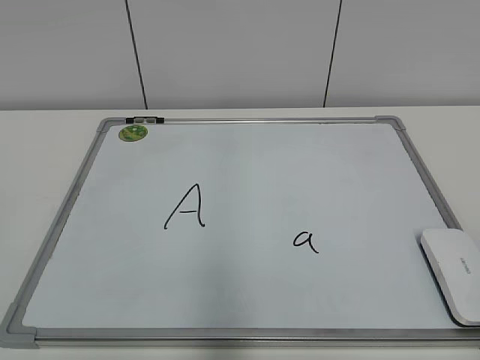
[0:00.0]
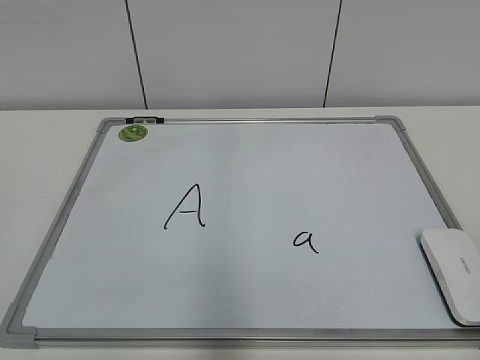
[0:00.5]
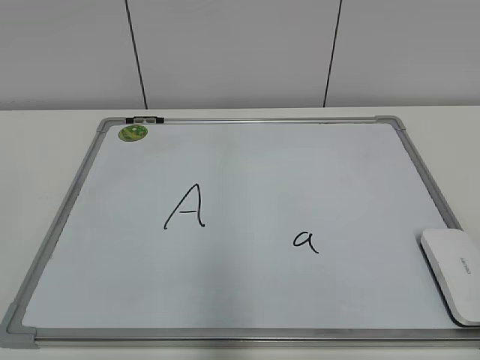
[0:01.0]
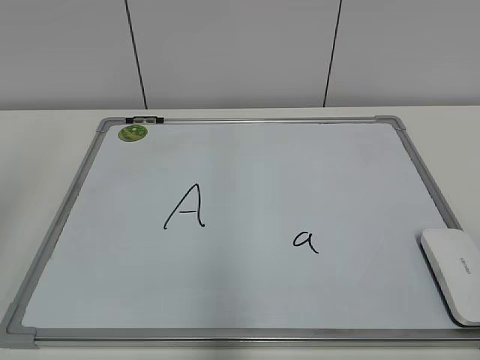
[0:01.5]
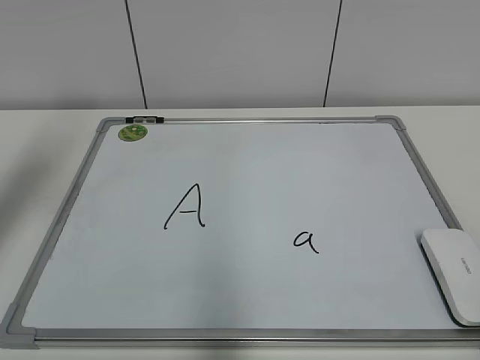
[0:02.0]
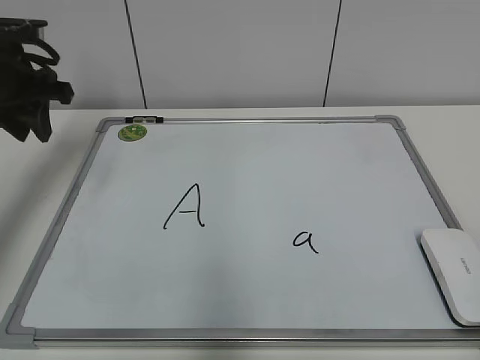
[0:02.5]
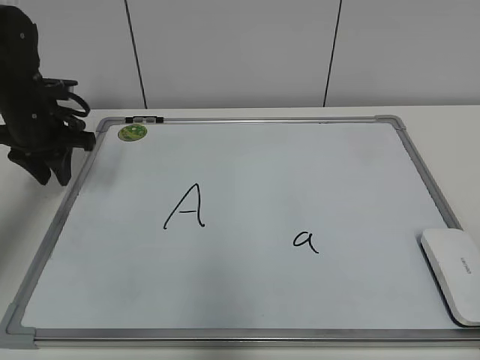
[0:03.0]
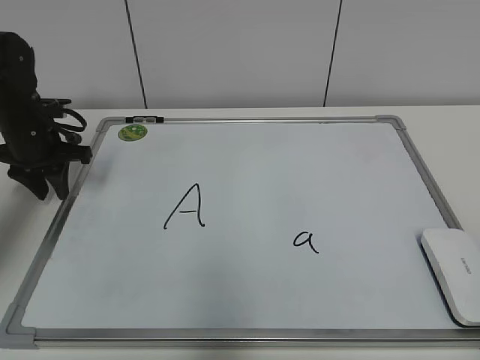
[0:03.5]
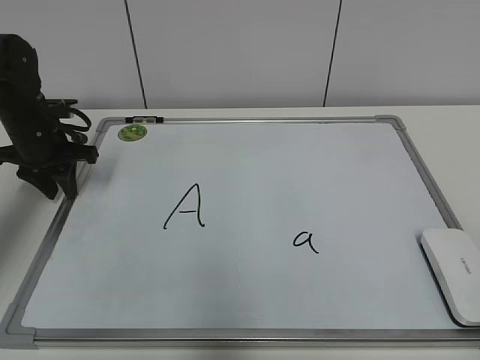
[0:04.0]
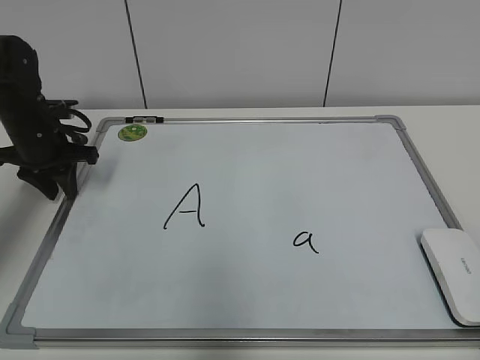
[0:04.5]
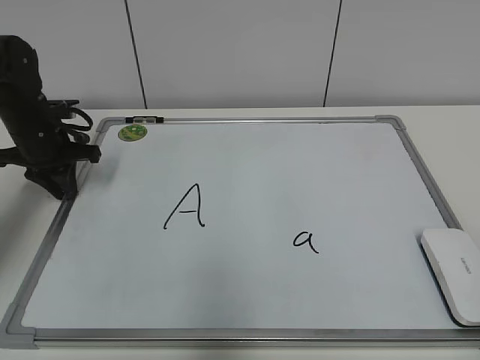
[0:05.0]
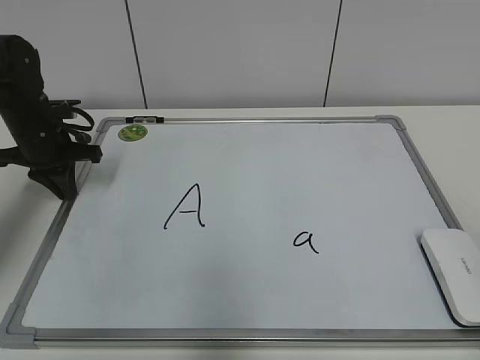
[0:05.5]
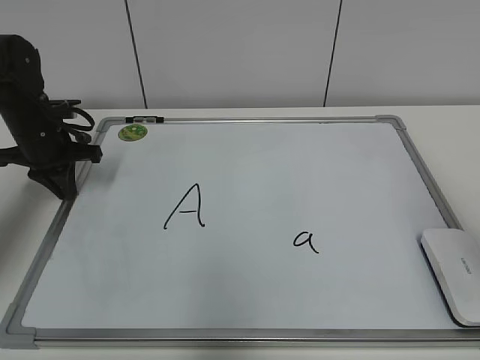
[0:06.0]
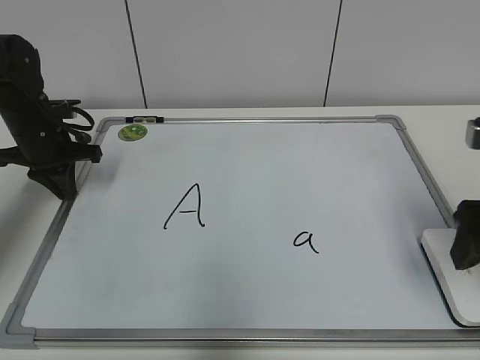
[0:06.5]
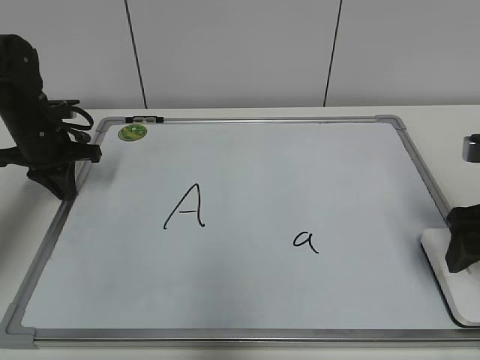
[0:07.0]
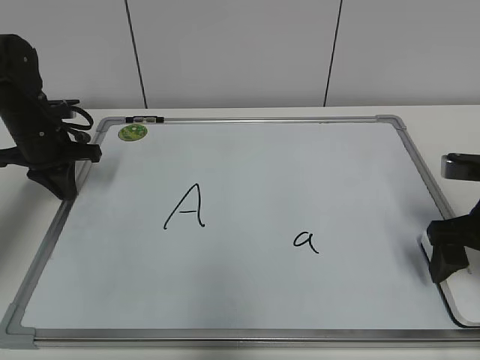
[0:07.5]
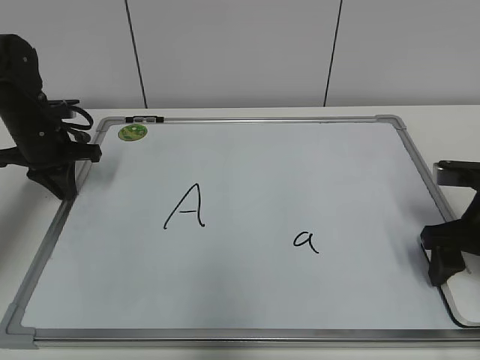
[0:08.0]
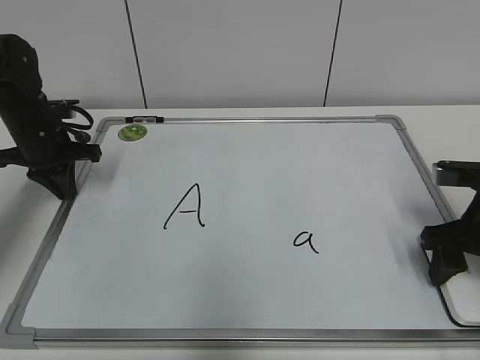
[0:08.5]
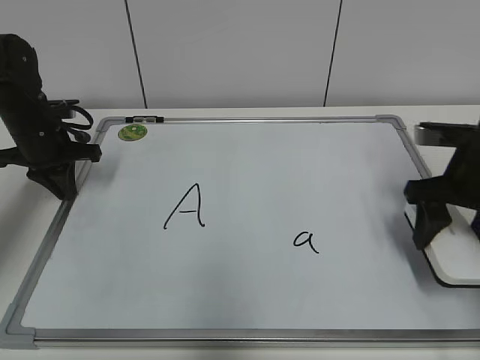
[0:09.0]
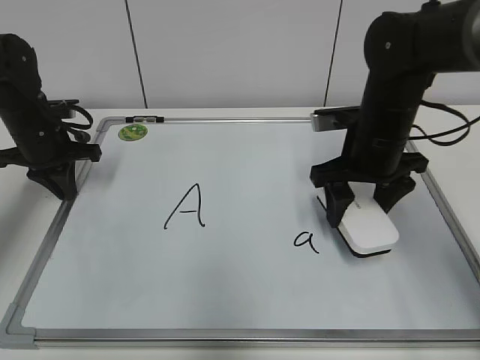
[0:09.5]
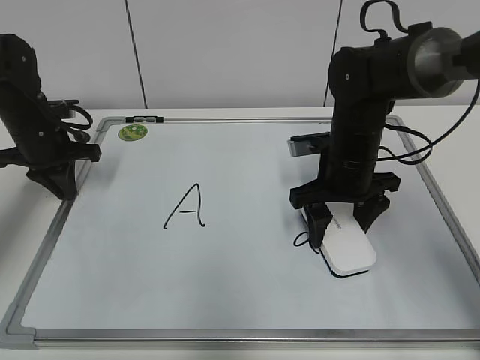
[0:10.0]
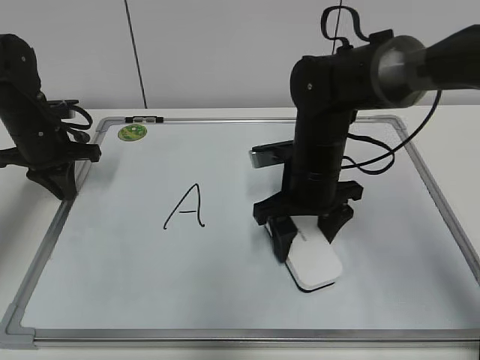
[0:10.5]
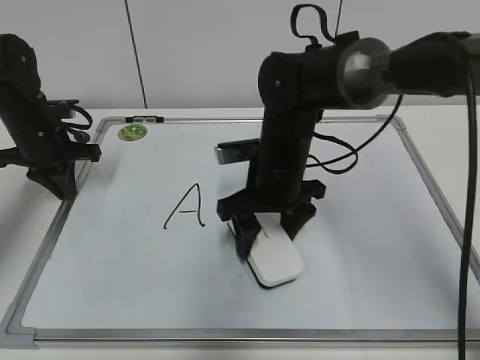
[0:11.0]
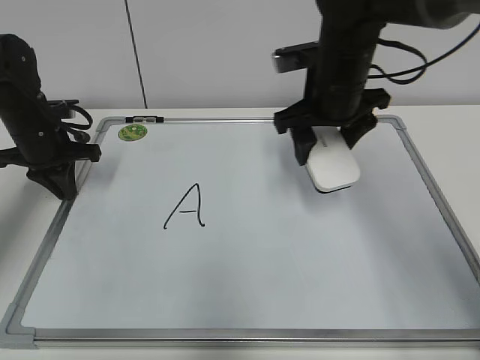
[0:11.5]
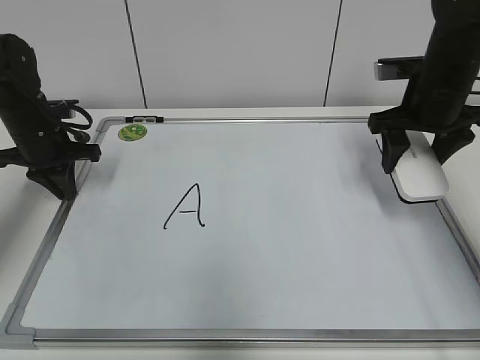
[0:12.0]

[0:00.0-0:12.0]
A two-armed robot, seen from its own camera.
Task of the whole recording: pick up the eraser on the blackboard and erase the letter "a".
Step, 0:00.0 to 0:05.0: Hold the drawing board steady with your left hand.
Step, 0:05.5 to 0:08.0: Grab the eraser with your right hand.
Step, 0:08.5 to 0:10.5: Erase the letter a with your right hand.
0:02.0 to 0:04.0: The left gripper is displaced downward and forward by approximately 20 cm.
0:04.0 to 0:06.0: The left gripper closes up.
0:06.0 to 0:08.0: The right gripper shifts about 20 cm downward and forward, and opens, then closes once more.
0:08.0 to 0:10.0: The right gripper heads to the left and forward, covering some 15 cm.
0:10.0 to 0:12.0: The right gripper heads to the right and upward, covering some 15 cm.

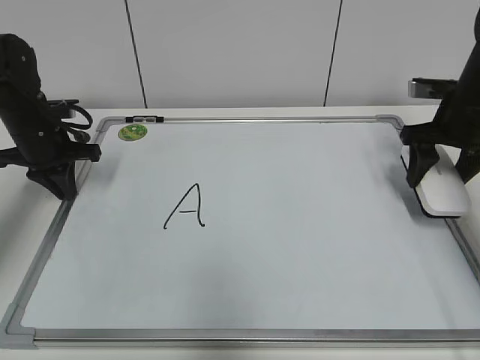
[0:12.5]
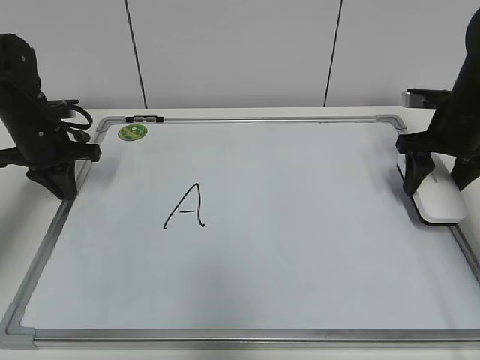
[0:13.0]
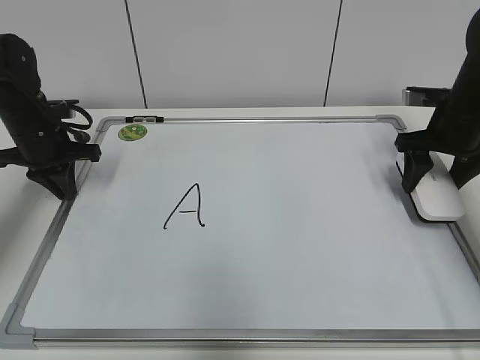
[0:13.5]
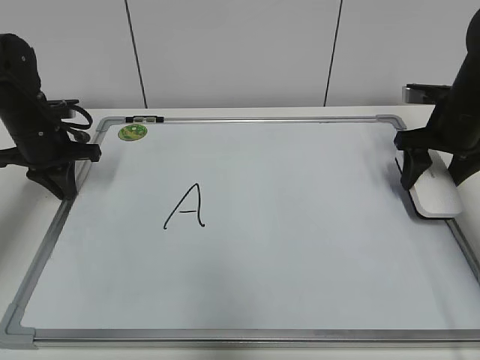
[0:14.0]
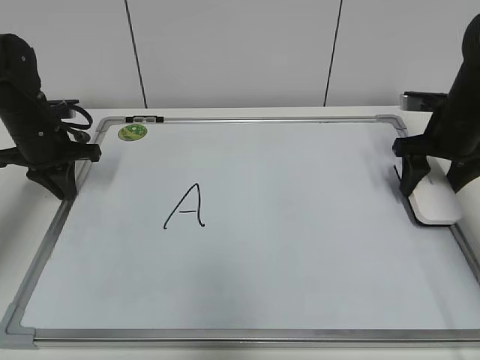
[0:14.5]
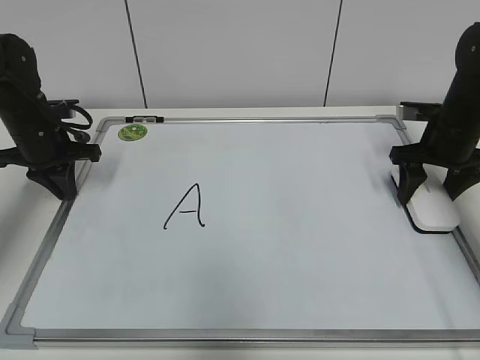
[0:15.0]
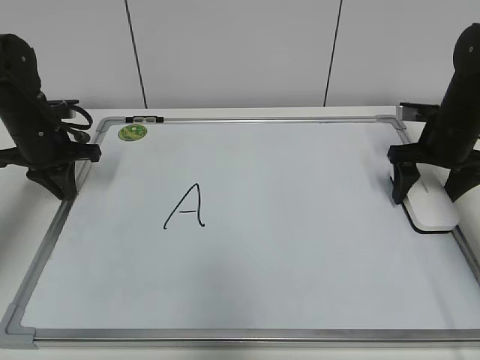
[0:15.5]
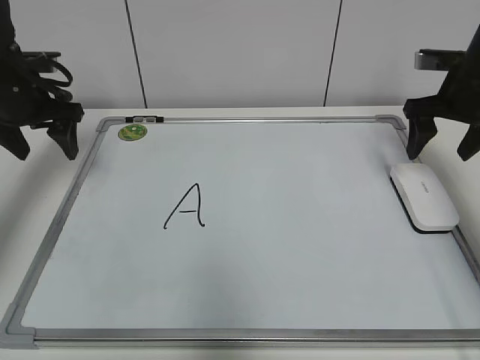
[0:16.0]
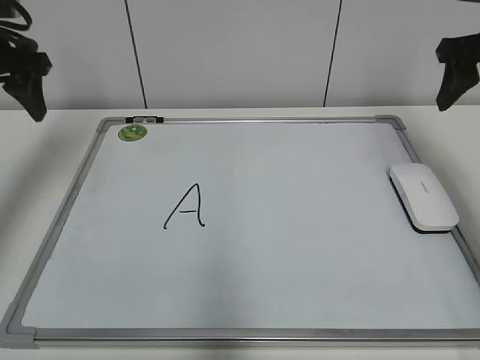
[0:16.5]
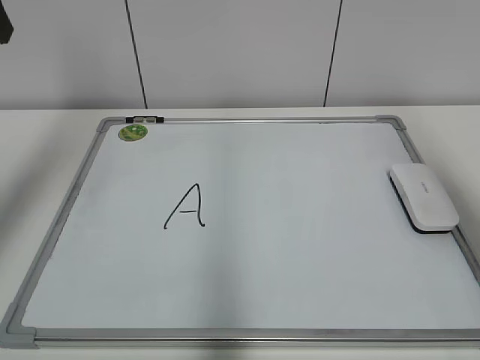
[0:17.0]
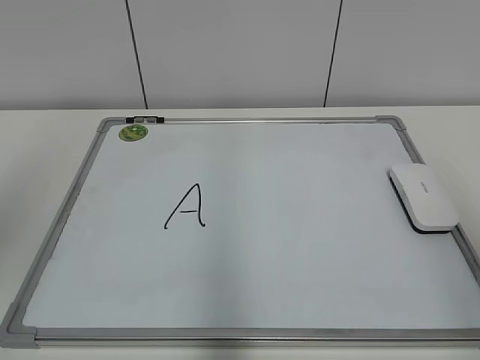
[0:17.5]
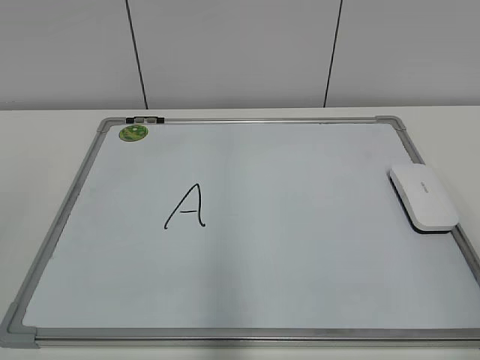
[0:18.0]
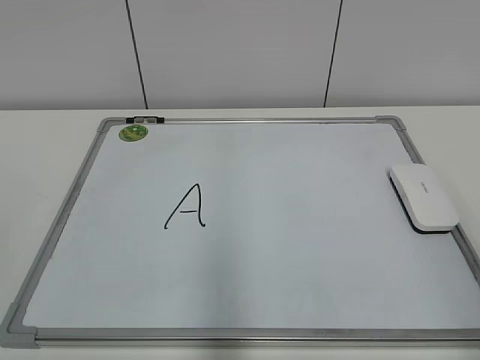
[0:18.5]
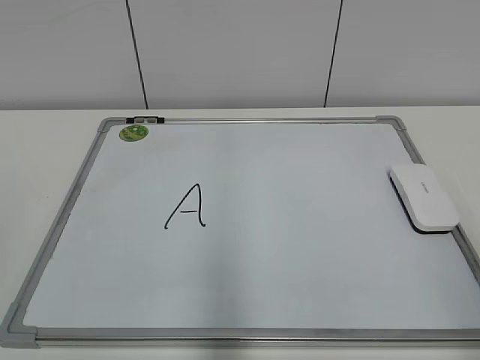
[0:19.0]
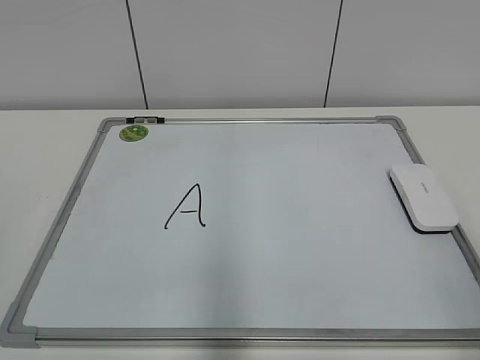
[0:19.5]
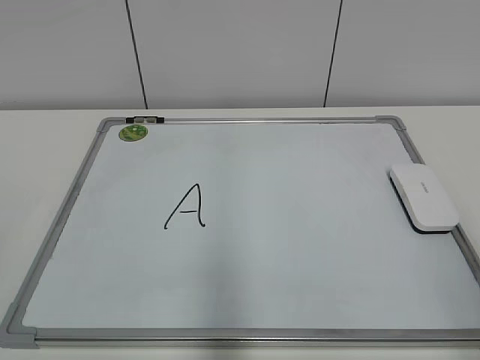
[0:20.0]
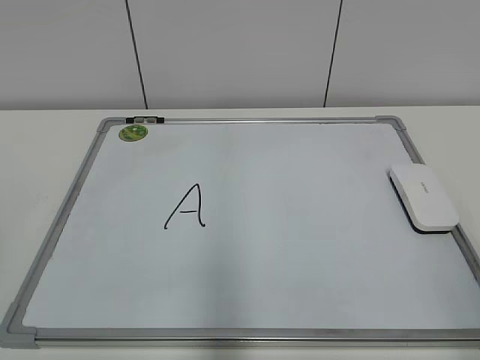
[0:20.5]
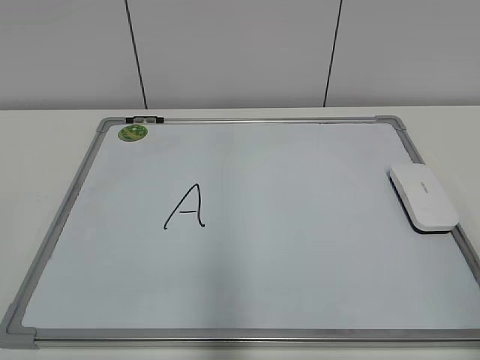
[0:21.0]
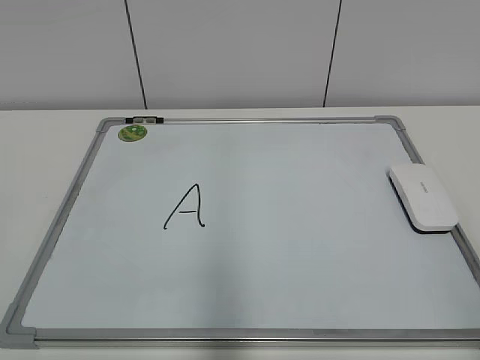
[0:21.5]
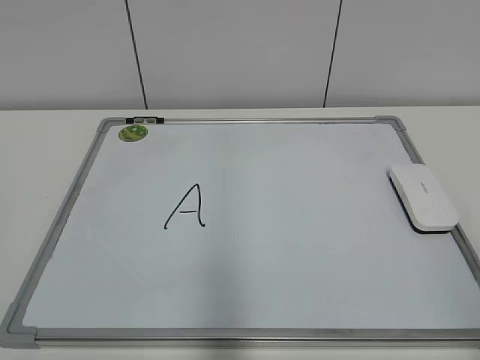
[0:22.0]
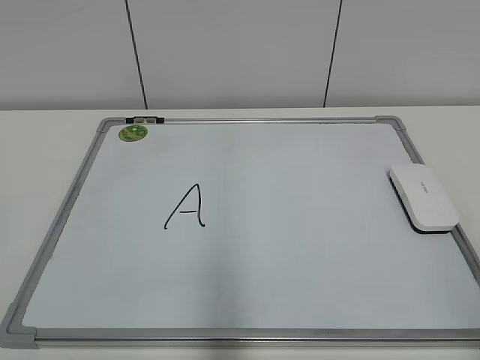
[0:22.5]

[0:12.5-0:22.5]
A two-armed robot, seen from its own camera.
Task of the whole recording: pick up the eraser on the blackboard and erase the letter "a".
0:12.5 to 0:14.5: The grippers stay close to where they were, moving slightly.
0:14.5 to 0:16.5: The grippers both shift upward by roughly 15 cm. The left gripper opens its fingers. Meanwhile the right gripper opens and closes again.
0:16.5 to 0:18.5: The grippers both shift backward by about 35 cm.
